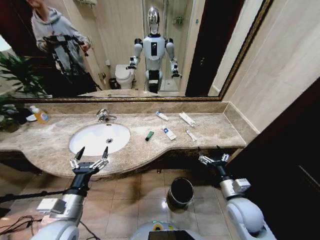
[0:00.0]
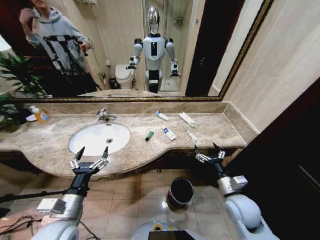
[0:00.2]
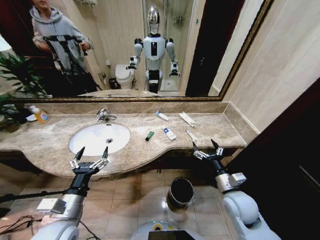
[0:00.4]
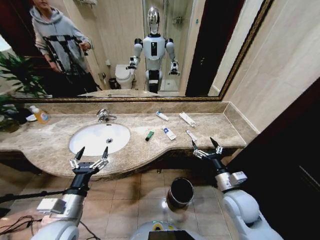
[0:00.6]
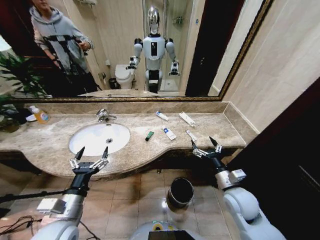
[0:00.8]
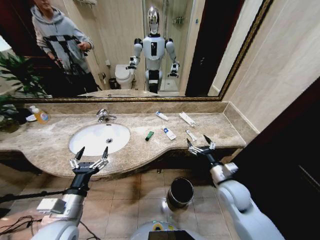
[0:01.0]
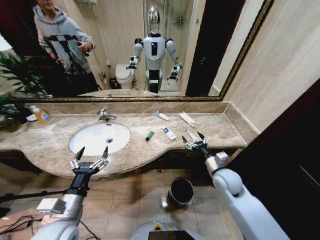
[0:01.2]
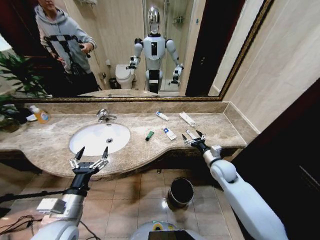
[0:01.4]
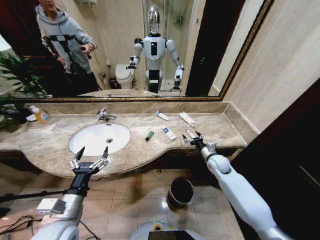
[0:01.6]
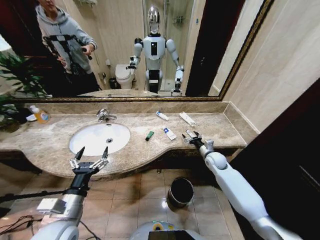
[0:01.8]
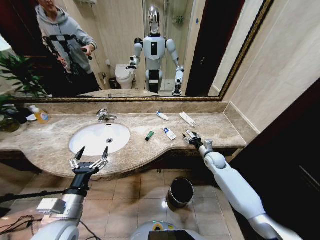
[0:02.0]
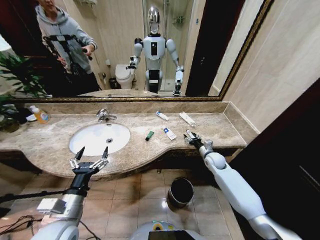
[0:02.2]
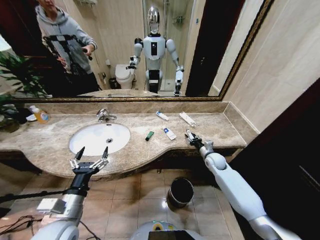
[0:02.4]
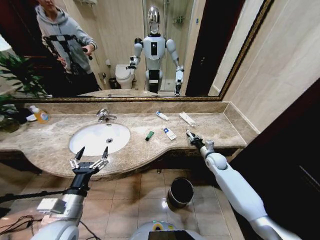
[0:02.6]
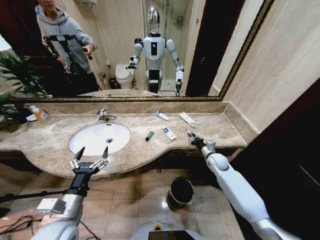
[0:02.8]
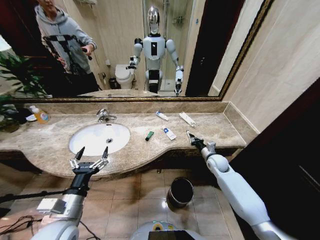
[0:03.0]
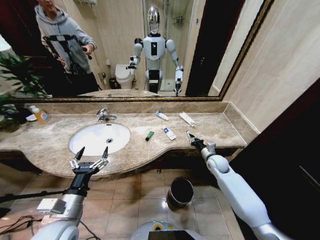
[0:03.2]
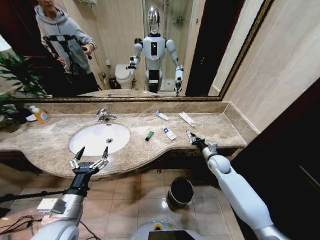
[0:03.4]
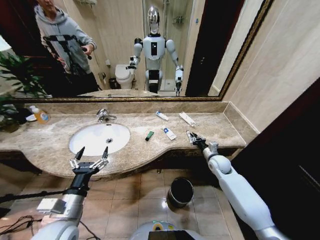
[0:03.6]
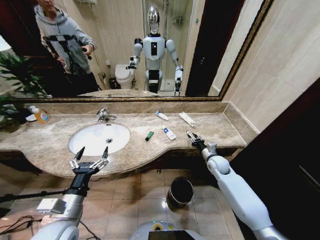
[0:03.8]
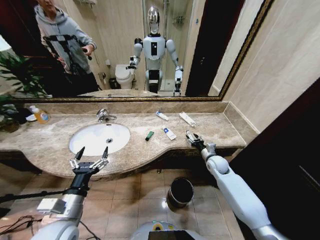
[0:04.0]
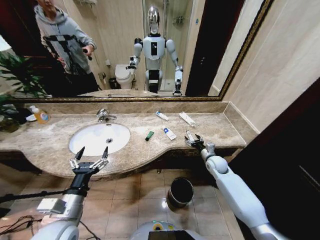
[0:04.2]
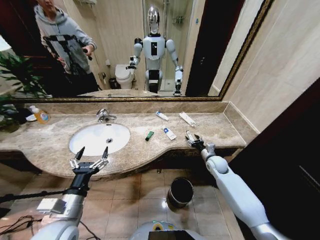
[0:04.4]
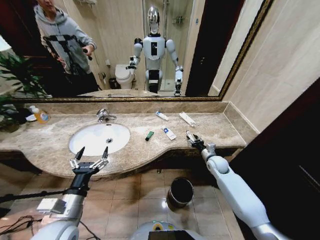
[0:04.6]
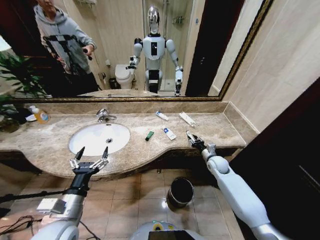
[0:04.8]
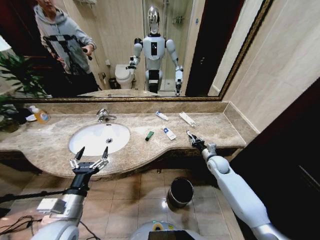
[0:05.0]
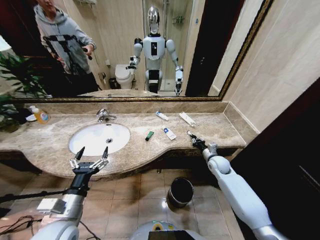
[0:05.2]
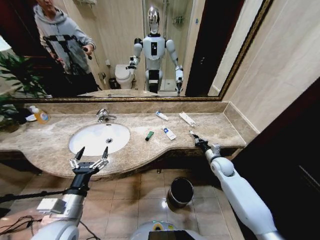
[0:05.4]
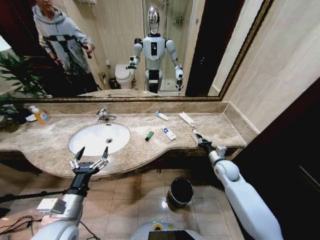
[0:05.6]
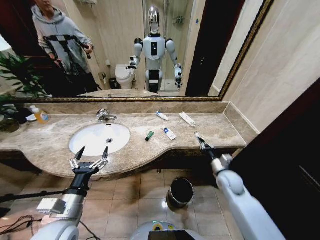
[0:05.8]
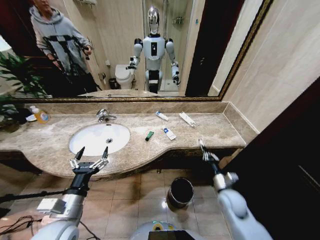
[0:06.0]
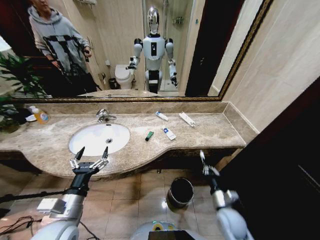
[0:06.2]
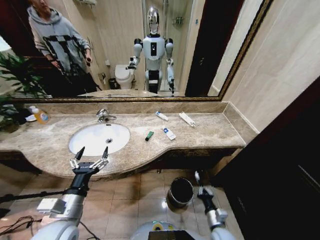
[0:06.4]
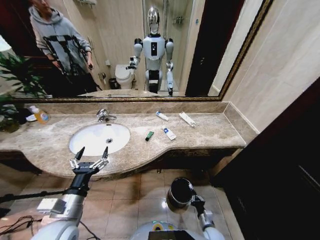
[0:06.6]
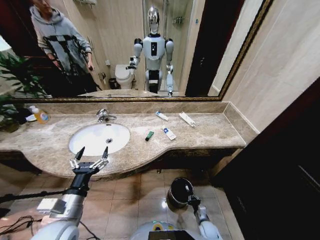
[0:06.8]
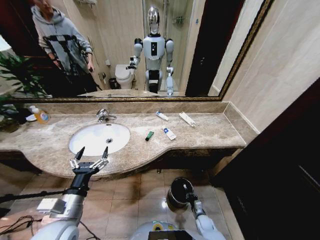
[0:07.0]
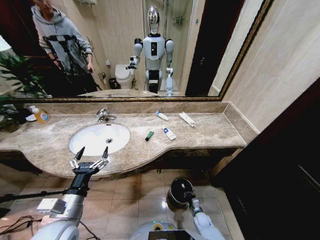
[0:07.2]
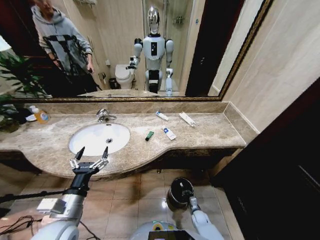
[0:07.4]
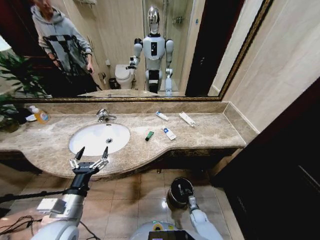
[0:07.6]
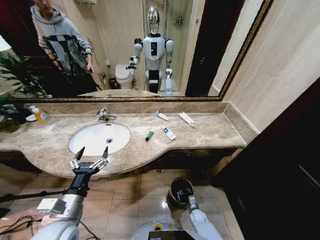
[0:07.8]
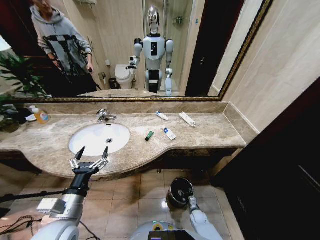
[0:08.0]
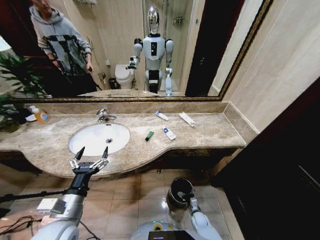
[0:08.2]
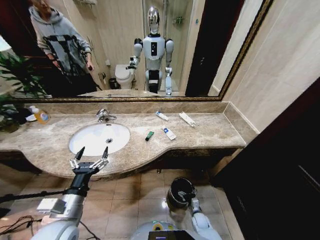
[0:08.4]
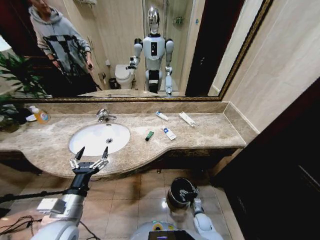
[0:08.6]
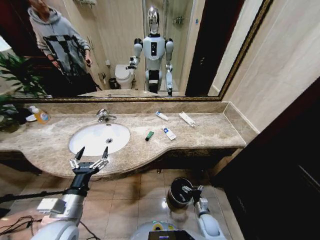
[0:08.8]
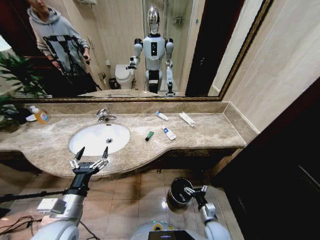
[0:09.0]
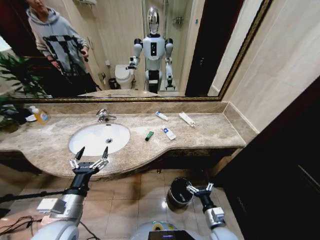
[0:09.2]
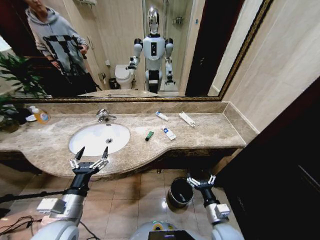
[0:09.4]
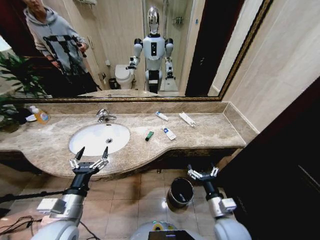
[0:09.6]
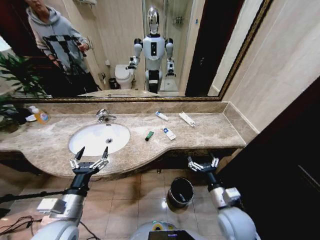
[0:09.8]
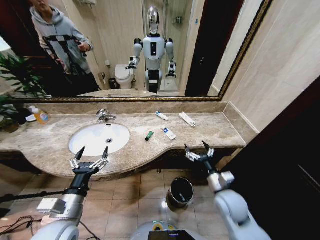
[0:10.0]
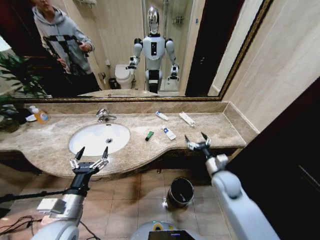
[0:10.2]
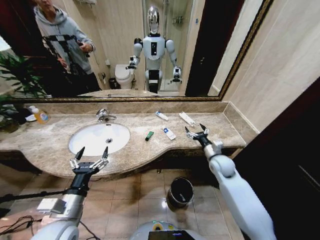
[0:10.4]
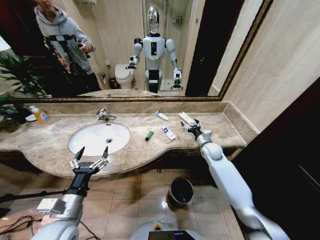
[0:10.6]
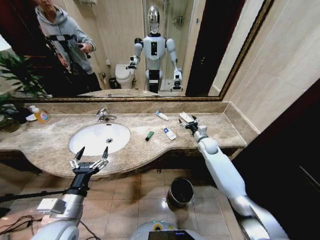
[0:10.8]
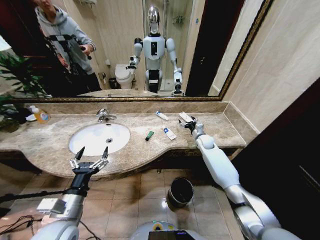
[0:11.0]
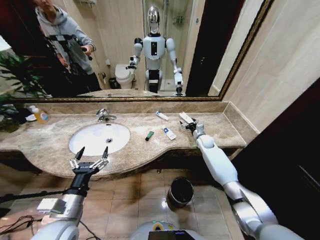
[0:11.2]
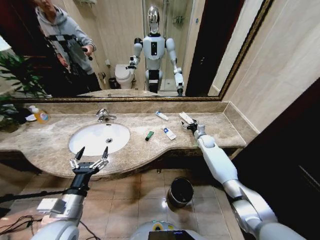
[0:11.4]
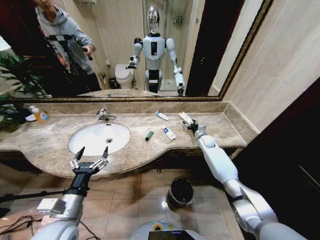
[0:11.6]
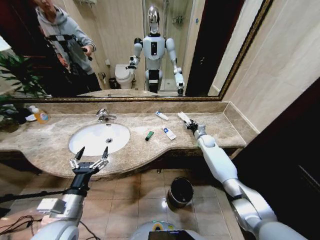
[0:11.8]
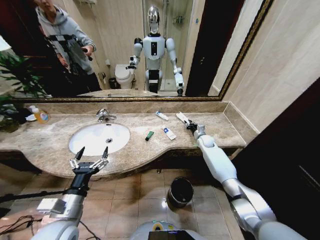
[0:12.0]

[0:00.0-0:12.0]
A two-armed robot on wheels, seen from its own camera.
Task of the whole recording: Pick up the trash from the sink and place it in the trash bin.
0:01.6 to 0:03.0: The right gripper closes its fingers.
0:03.0 to 0:04.4: The right gripper opens.
0:04.4 to 0:06.0: The right gripper is displaced backward by some 15 cm, and closes up.
0:06.0 to 0:07.6: The right gripper moves downward, some 30 cm.
0:07.6 to 0:09.0: The right gripper moves upward and backward, roughly 20 cm, and opens.
0:09.0 to 0:10.4: The right gripper is displaced forward and upward by about 30 cm.
0:10.4 to 0:12.0: The right gripper shifts some 20 cm forward, and closes up.

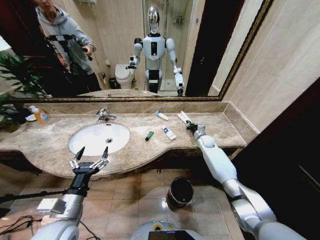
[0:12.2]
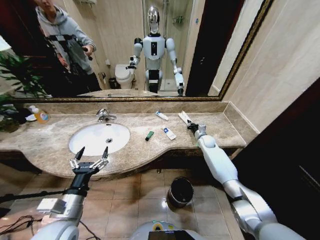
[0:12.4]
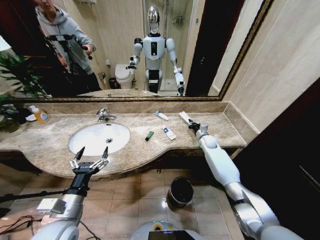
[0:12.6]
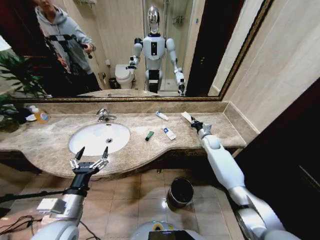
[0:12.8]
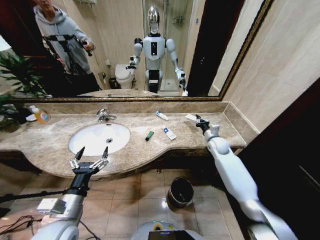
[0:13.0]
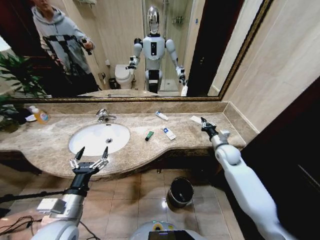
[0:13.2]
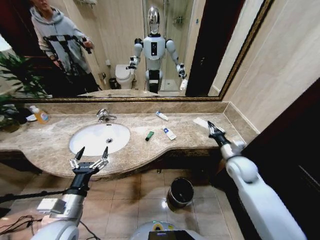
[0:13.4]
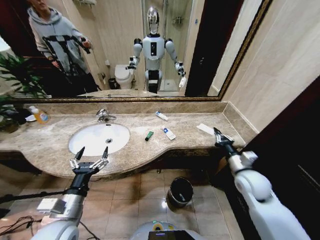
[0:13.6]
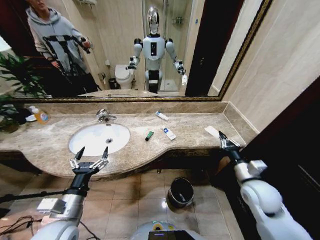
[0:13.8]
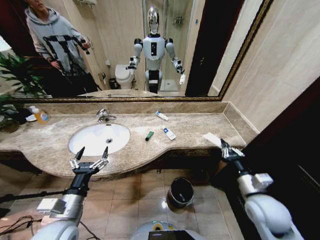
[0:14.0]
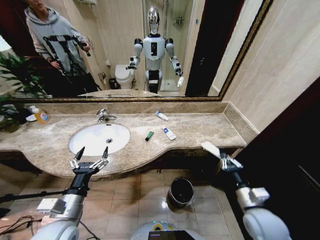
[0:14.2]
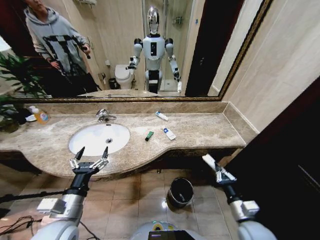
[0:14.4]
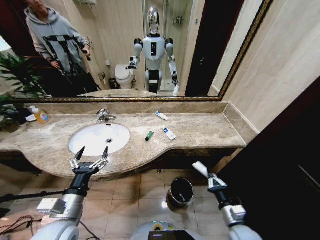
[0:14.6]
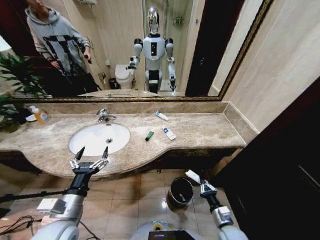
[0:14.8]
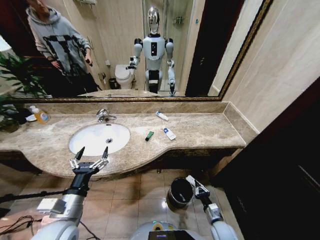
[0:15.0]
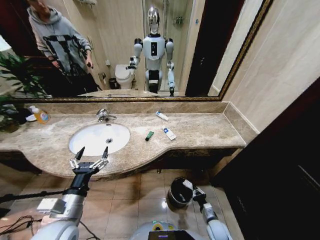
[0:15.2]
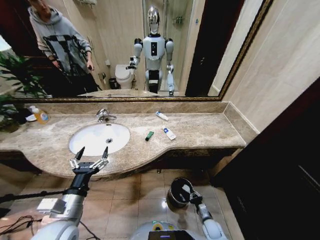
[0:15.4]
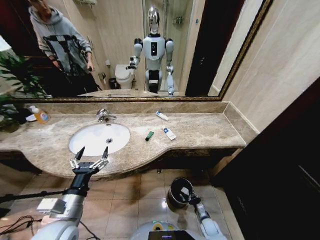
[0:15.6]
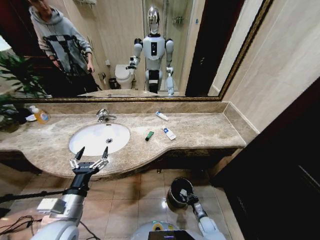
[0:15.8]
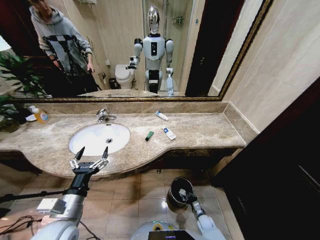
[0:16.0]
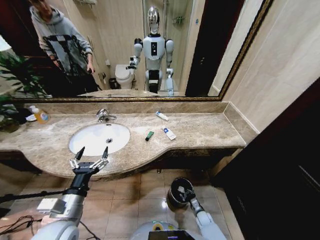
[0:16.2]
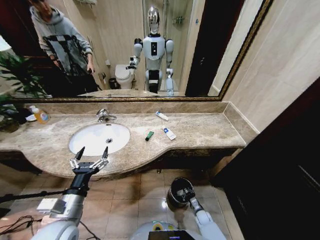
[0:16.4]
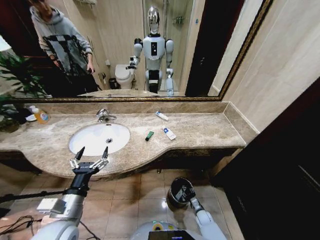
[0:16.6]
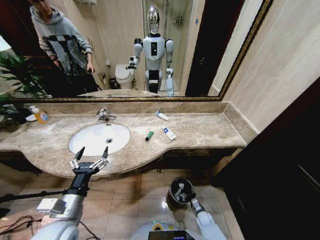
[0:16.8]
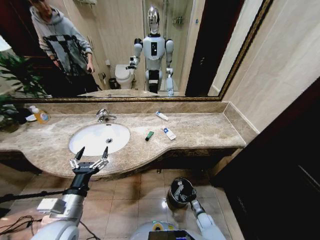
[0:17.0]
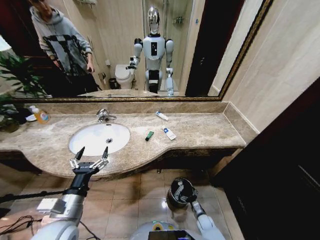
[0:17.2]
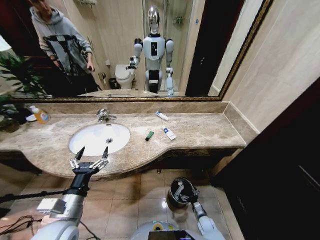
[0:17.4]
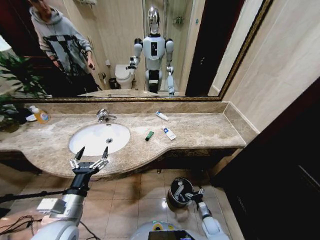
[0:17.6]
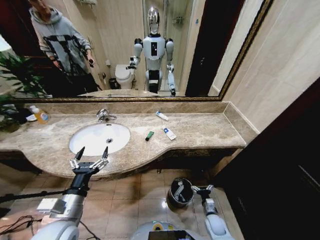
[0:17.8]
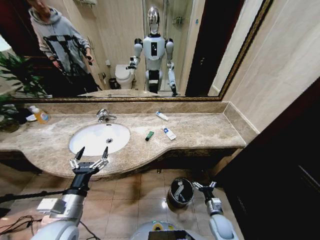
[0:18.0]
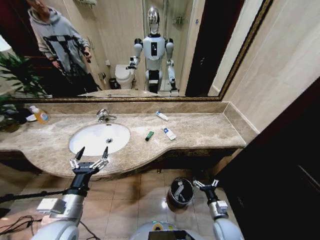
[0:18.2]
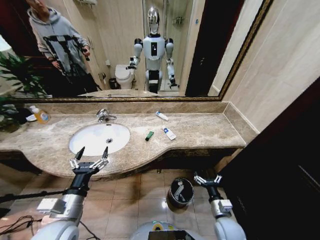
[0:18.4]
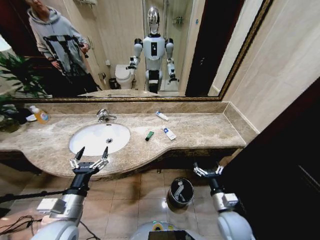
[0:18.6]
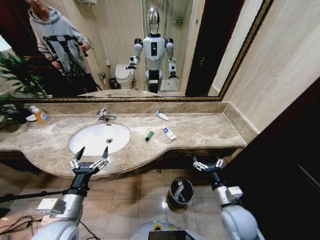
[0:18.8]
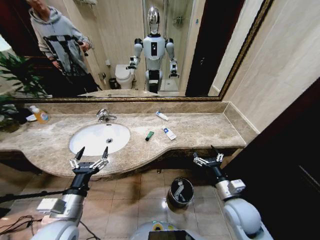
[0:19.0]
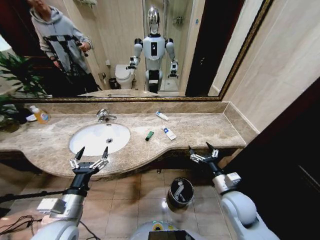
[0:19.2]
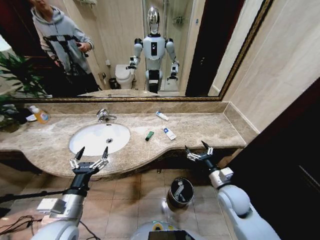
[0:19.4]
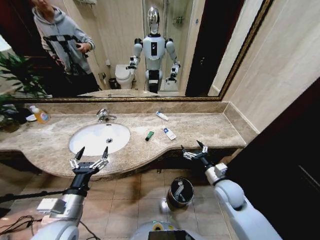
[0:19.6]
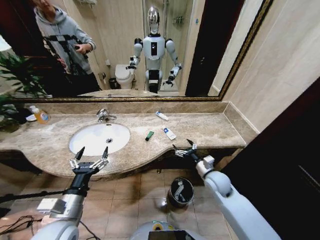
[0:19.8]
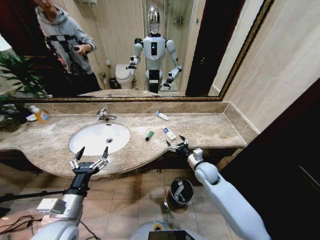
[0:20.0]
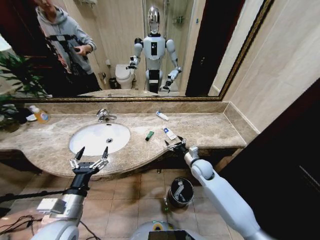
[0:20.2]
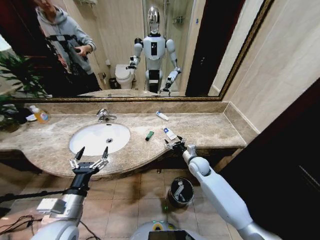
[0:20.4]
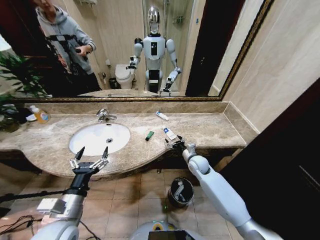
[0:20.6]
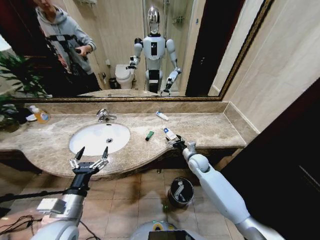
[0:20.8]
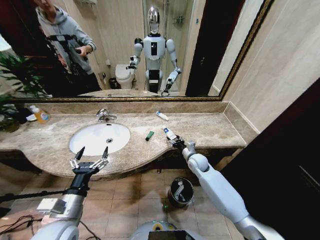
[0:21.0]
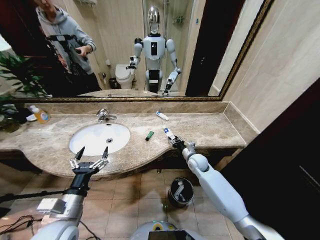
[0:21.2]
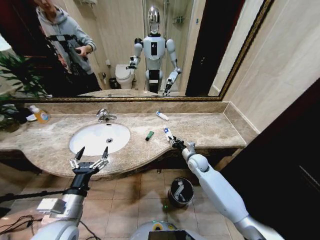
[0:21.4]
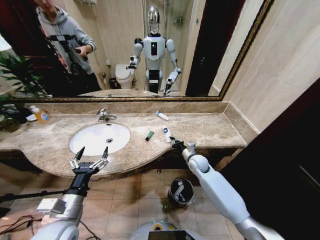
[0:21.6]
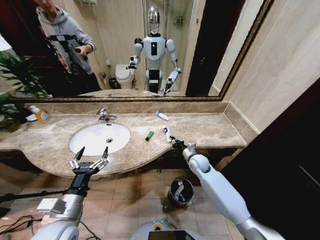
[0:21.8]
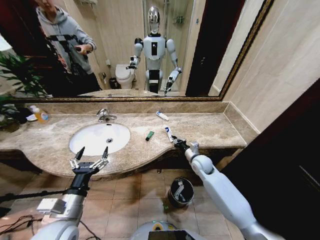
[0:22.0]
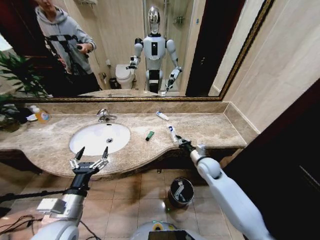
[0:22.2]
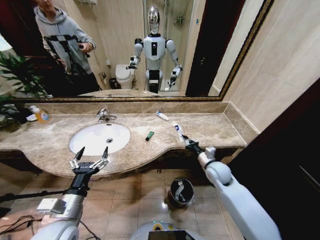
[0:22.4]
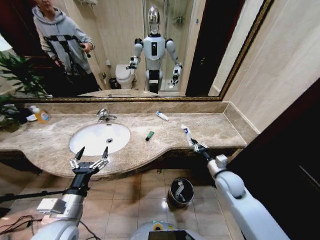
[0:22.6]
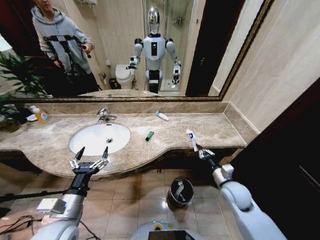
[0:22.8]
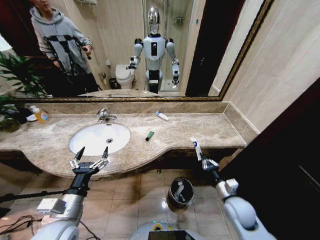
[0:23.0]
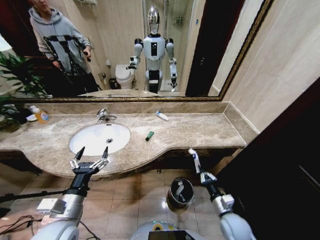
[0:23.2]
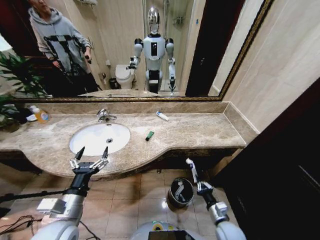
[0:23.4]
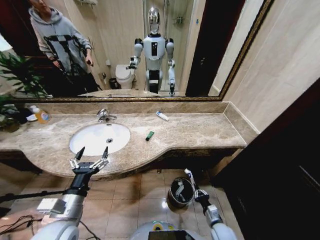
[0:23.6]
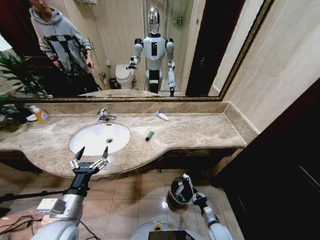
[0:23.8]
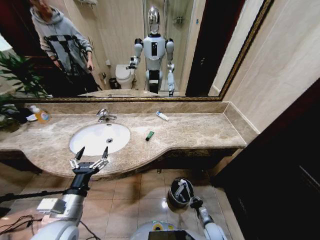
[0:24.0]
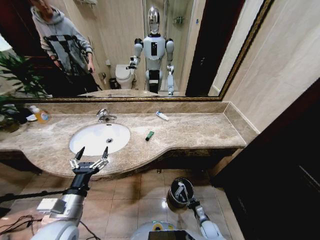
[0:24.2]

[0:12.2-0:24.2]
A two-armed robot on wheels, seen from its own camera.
Task of the whole recording: Pick up the trash from the sink and place it in the trash bin.
0:12.2 to 0:13.8: The right gripper goes about 35 cm backward.
0:13.8 to 0:15.2: The right gripper goes roughly 30 cm downward.
0:15.2 to 0:16.6: The right gripper shifts approximately 10 cm downward and forward, and opens its fingers.
0:16.6 to 0:18.2: The right gripper shifts some 20 cm upward, and opens.
0:18.2 to 0:19.8: The right gripper shifts about 20 cm upward and forward.
0:19.8 to 0:21.2: The right gripper is displaced forward by roughly 10 cm, and closes.
0:21.2 to 0:22.6: The right gripper heads backward and to the right, covering some 15 cm, and closes up.
0:22.6 to 0:24.2: The right gripper goes approximately 35 cm downward.
